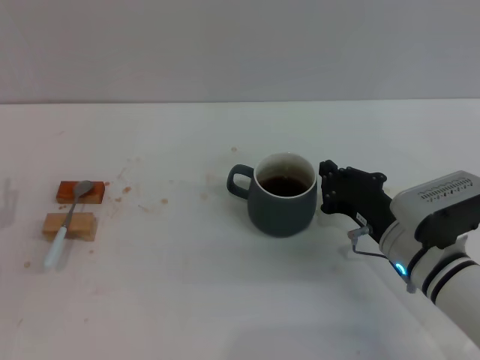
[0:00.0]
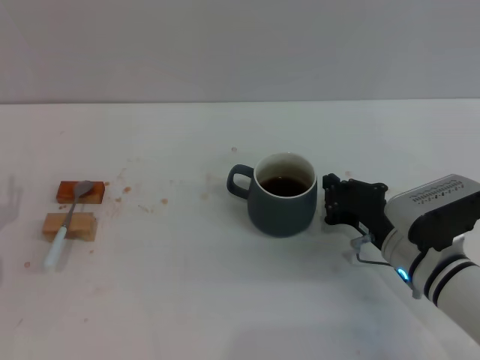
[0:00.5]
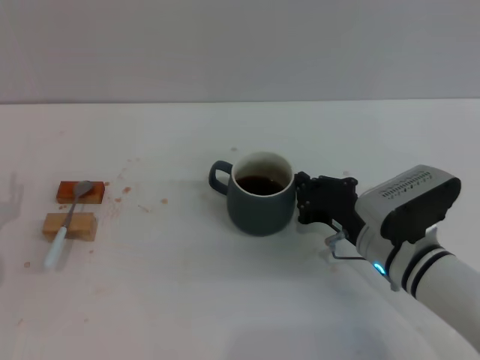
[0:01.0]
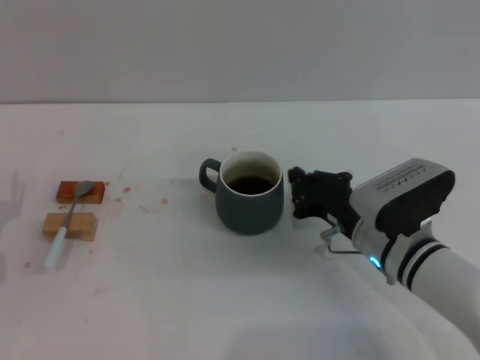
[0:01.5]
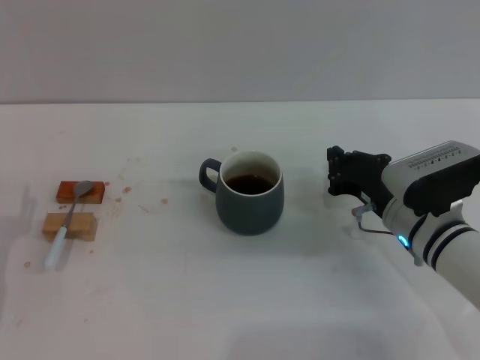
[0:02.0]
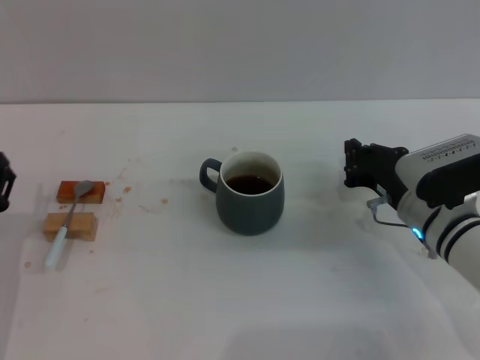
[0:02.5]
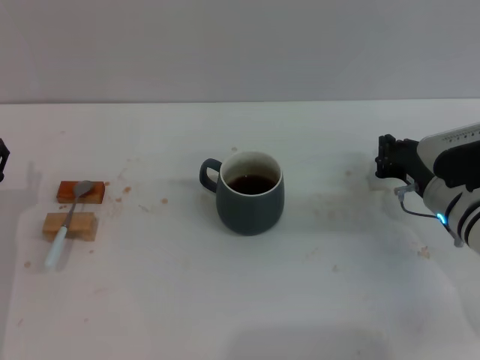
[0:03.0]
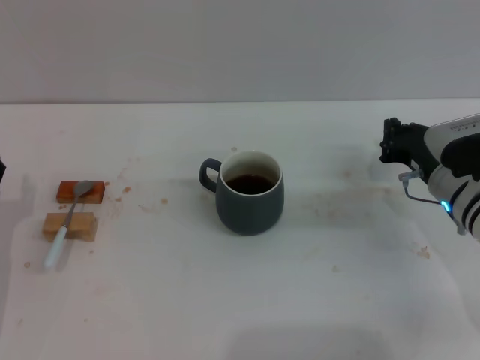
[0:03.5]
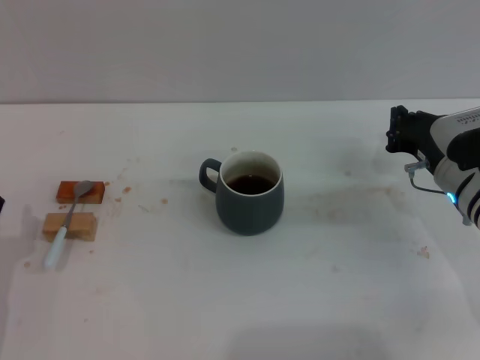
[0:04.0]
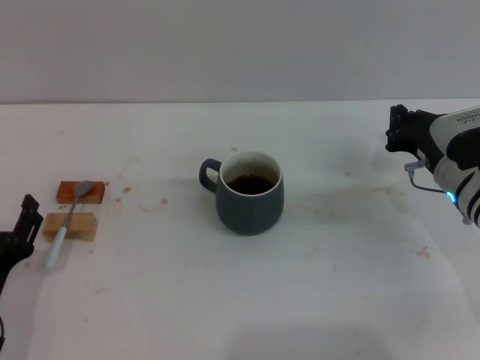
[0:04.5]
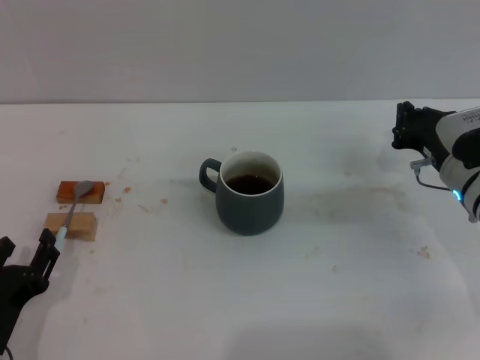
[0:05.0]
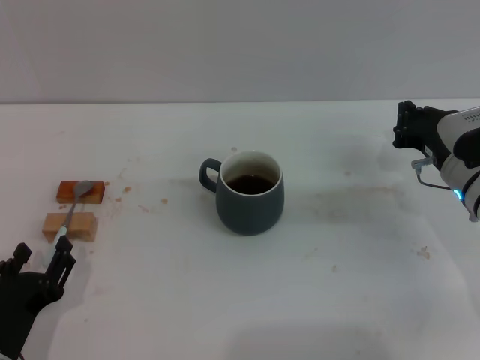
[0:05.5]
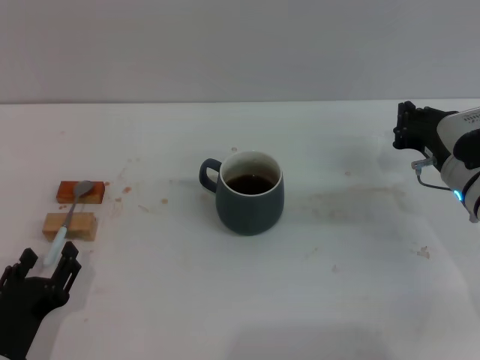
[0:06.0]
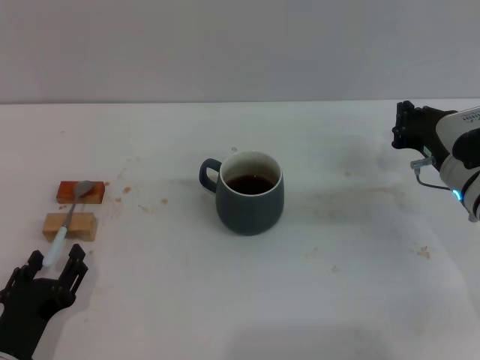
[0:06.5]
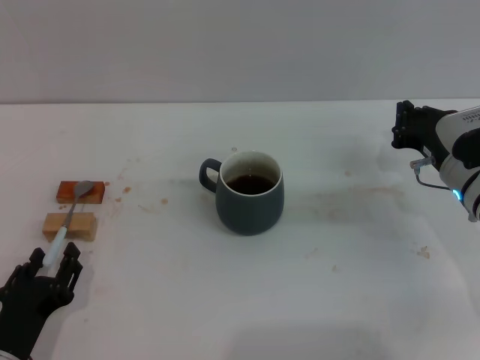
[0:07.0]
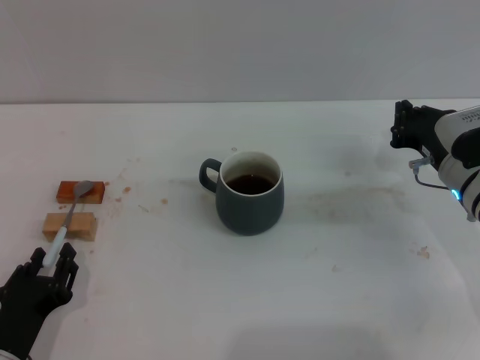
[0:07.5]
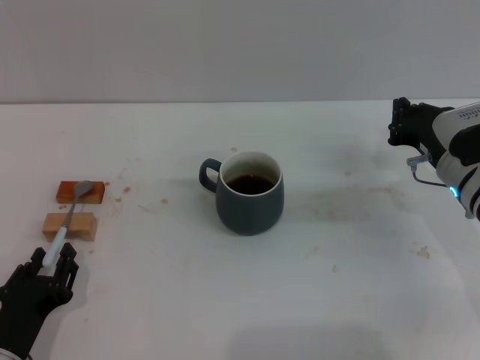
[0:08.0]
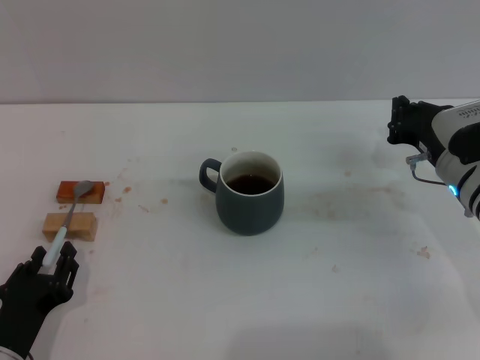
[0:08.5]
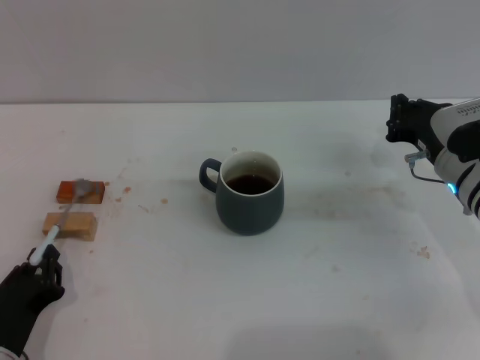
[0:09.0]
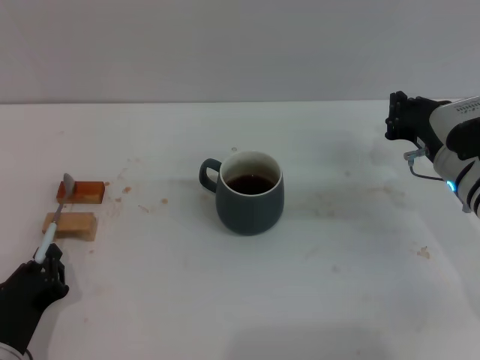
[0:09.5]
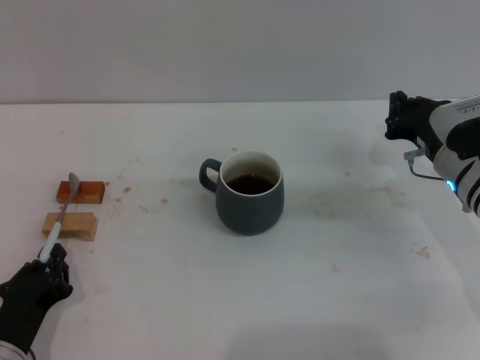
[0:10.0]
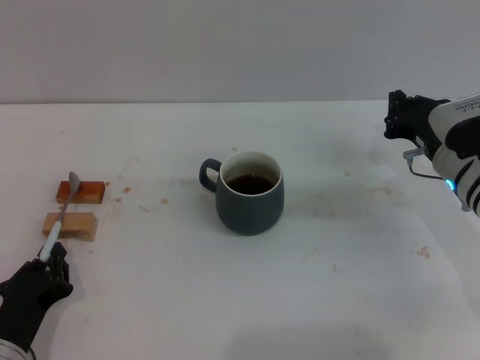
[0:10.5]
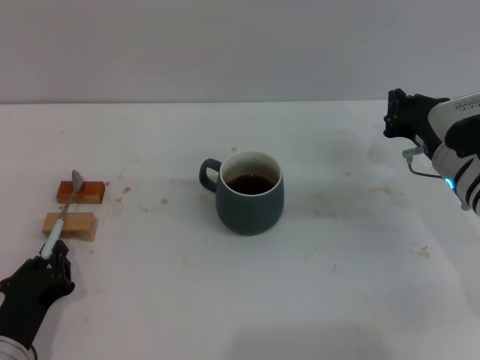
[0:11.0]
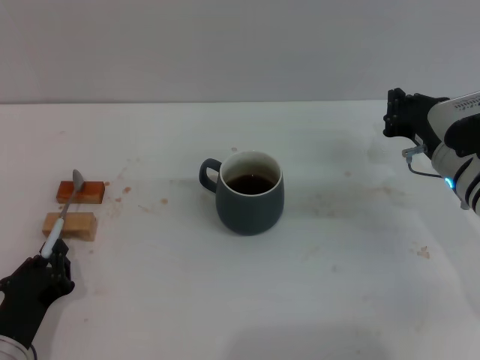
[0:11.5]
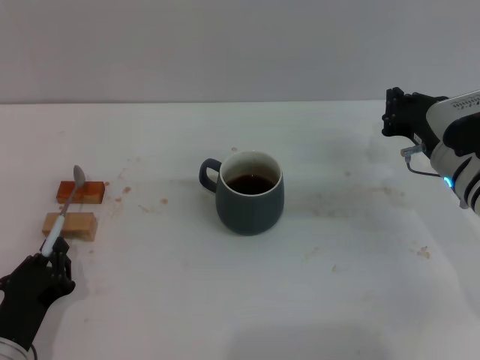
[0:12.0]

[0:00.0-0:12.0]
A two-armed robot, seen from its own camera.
Task of the whole recording: Move the grey cup to the center, lift the blue spoon, stir it three times in the cup, and put the spoon into the cup.
Step, 0.0 to 2.5 s: Move the cup with coffee to the center of view with the right gripper.
0.0 to 2.0 s: The grippers make only small movements.
2.0 to 4.0 s: The right gripper heads to the right, covering some 5 cm.
4.0 to 6.0 s: The left gripper is displaced backward and to the right by some 5 cm.
6.0 to 8.0 s: Both grippers stay put.
8.0 to 10.0 s: The left gripper closes up.
10.0 to 12.0 s: Both grippers stay put.

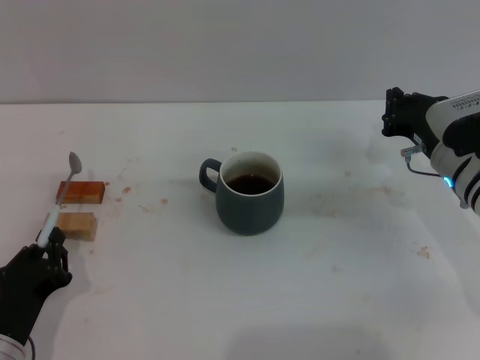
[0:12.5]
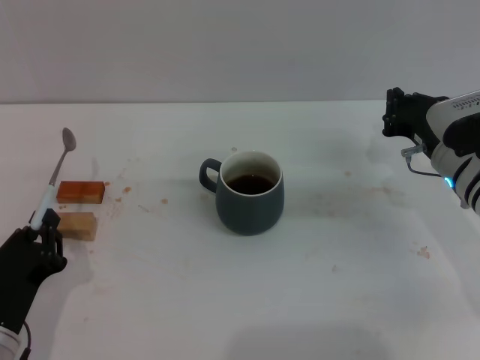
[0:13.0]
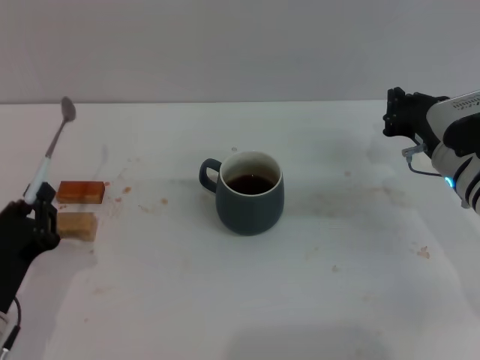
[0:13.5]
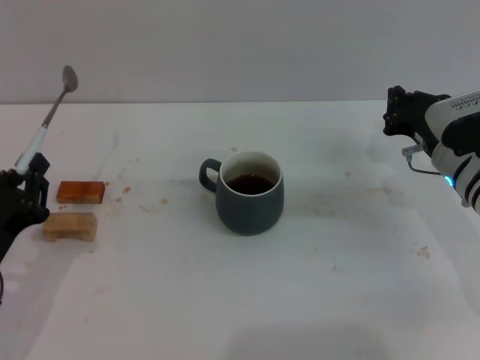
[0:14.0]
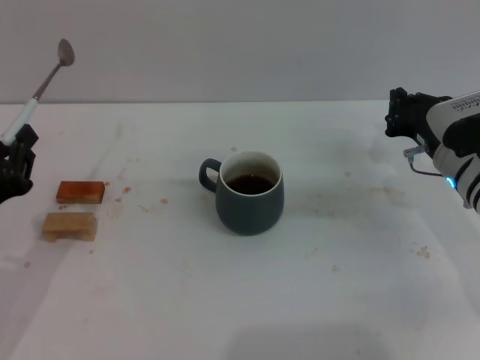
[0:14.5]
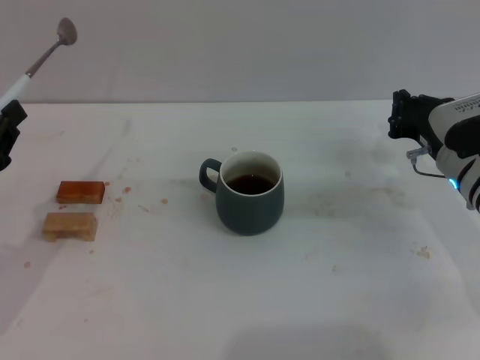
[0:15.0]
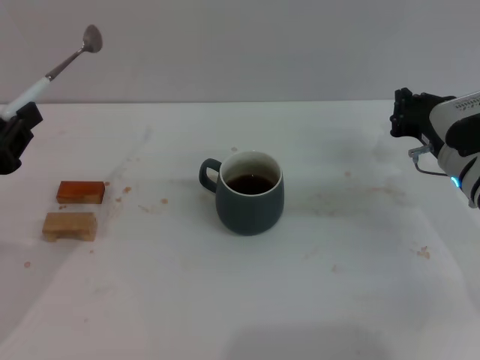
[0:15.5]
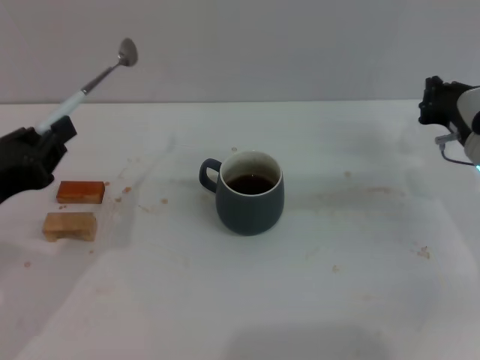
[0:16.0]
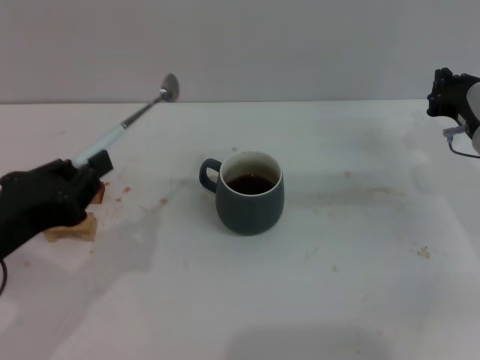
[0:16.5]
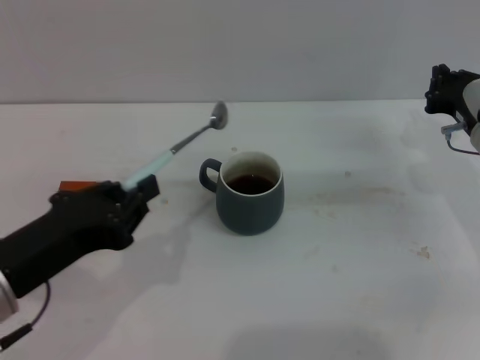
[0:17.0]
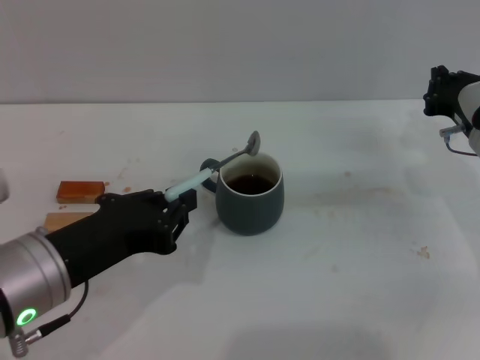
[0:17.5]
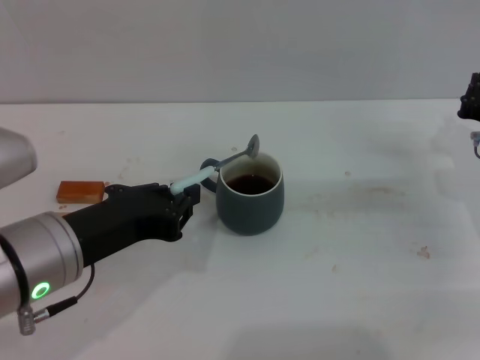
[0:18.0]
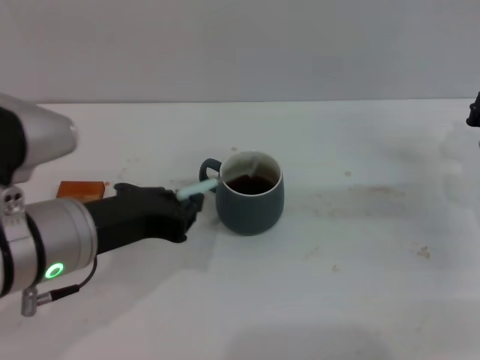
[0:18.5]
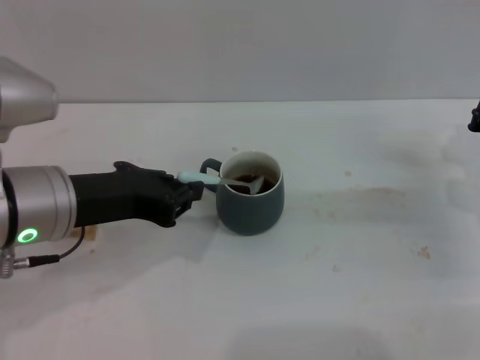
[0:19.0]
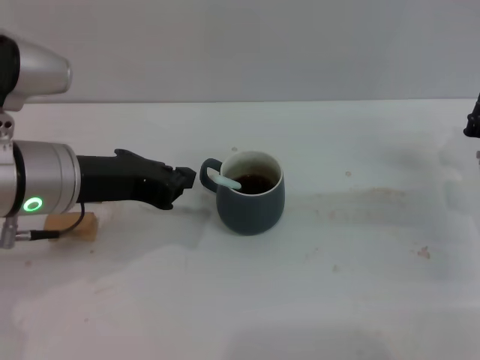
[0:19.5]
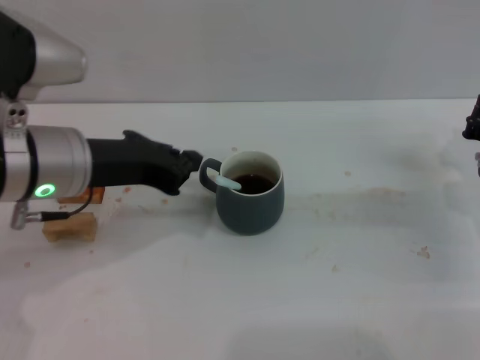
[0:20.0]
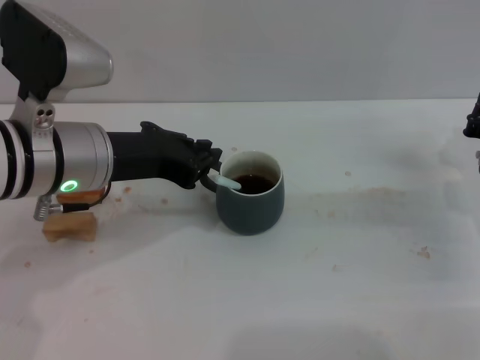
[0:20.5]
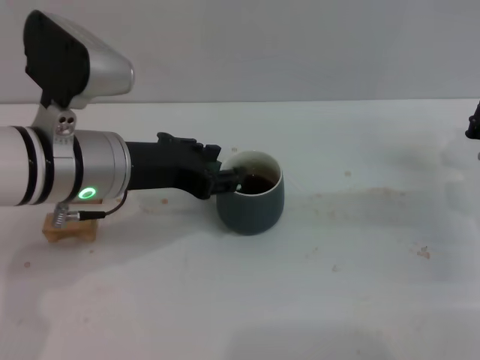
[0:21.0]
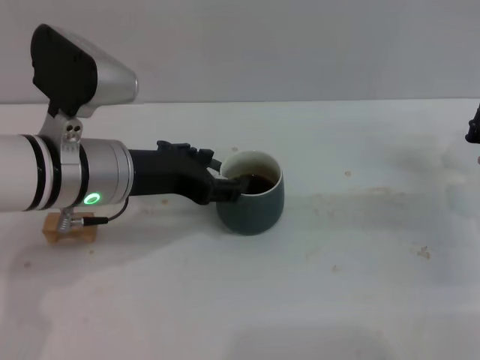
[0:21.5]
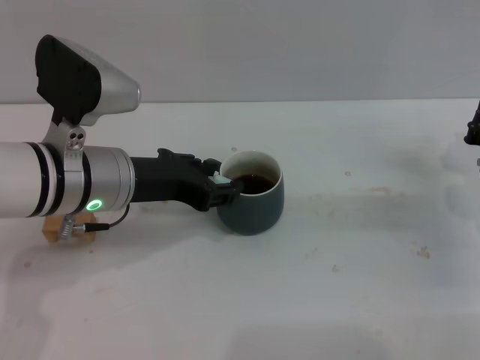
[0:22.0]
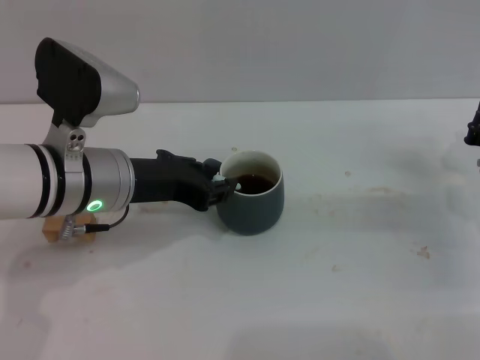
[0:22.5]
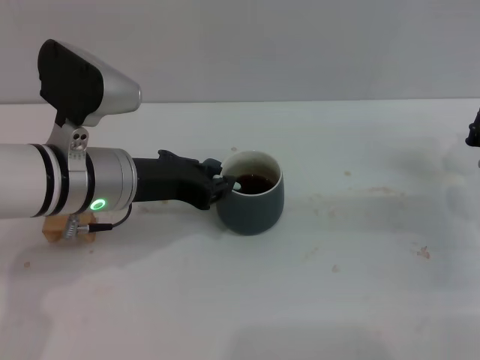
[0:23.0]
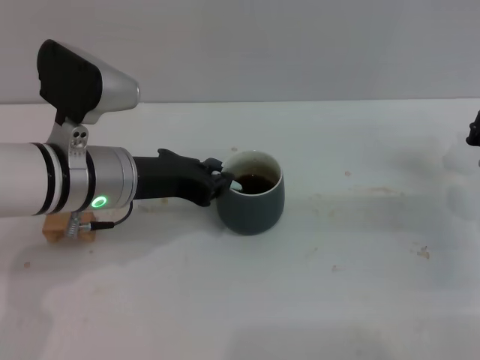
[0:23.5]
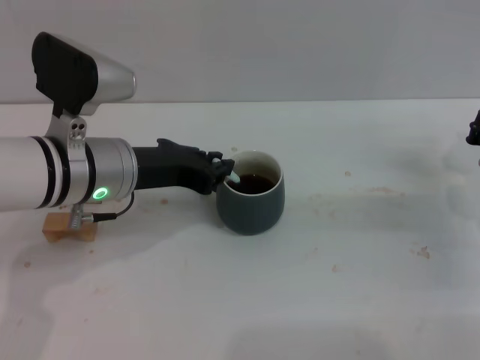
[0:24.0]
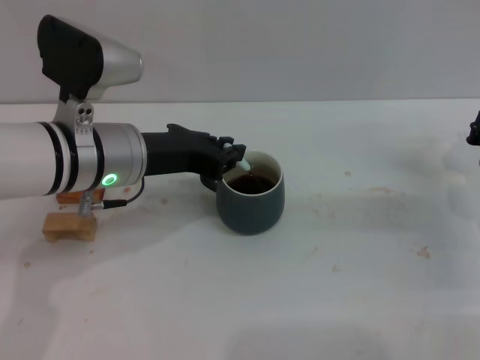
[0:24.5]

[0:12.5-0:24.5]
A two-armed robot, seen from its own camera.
Task of the whole recording: Move the grey cup to the center, lift the blue spoon, stir it three times in the cup, and put the spoon into the cup.
12.5 to 14.5 s: The left gripper goes some 10 cm upward.
14.5 to 16.5 s: The left gripper travels upward by about 5 cm.
16.5 to 18.5 s: The left gripper goes roughly 10 cm to the right.
18.5 to 20.5 s: The left gripper shifts approximately 5 cm forward.
20.5 to 22.5 s: The left gripper opens its fingers.
22.5 to 24.5 s: The grippers stay close to where they were, moving slightly.

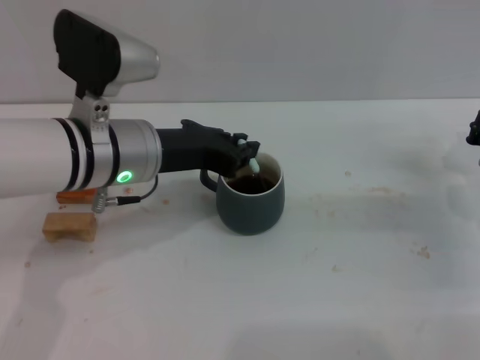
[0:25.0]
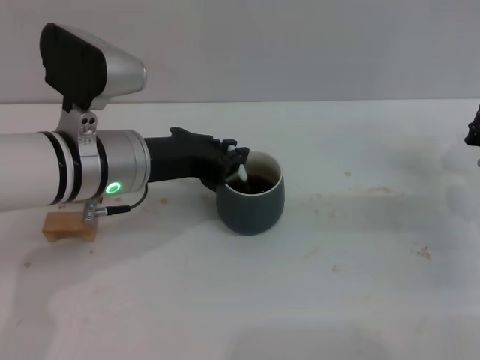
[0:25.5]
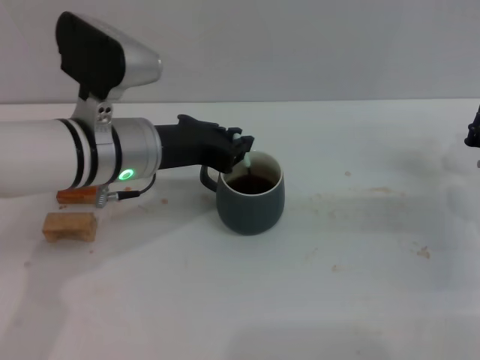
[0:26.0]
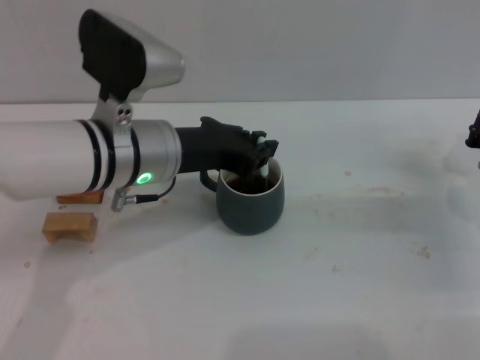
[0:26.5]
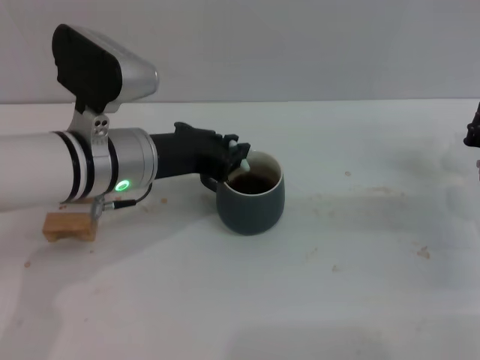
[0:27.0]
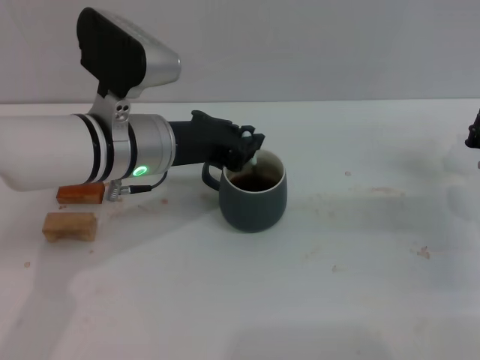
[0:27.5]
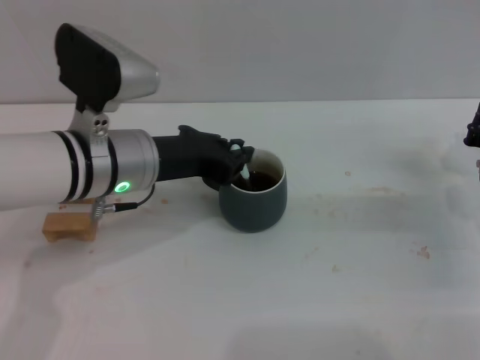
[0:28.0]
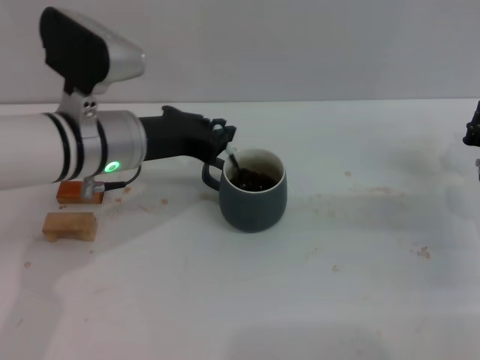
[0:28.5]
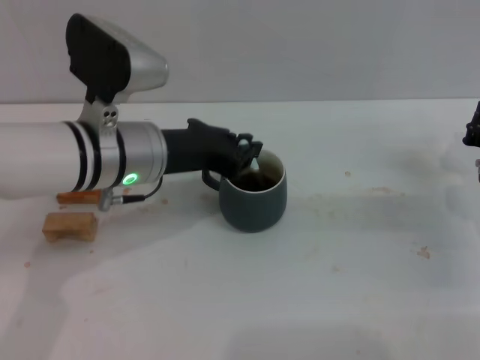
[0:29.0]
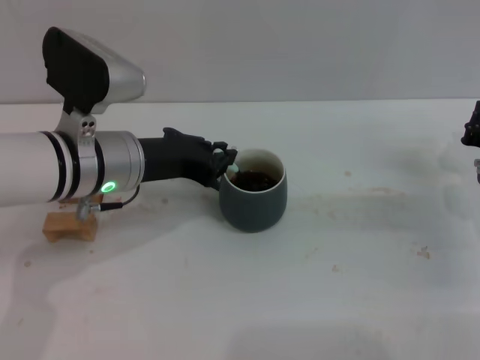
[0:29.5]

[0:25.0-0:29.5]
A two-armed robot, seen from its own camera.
Task of the whole recording: Move the grey cup to the center, lift the blue spoon, stir it three times in the cup, and put the spoon into the cup.
25.0 to 29.5 s: The grippers stay close to where they were, moving slightly.
